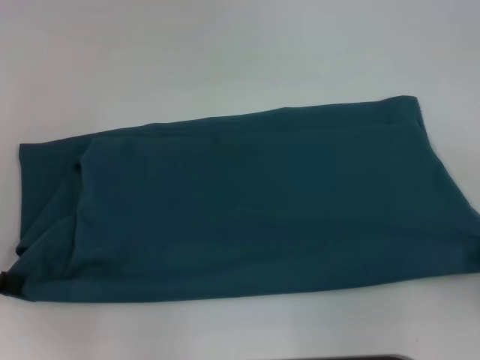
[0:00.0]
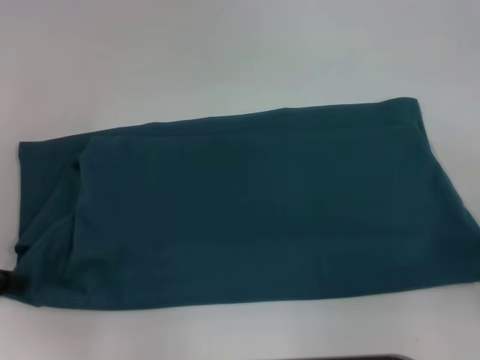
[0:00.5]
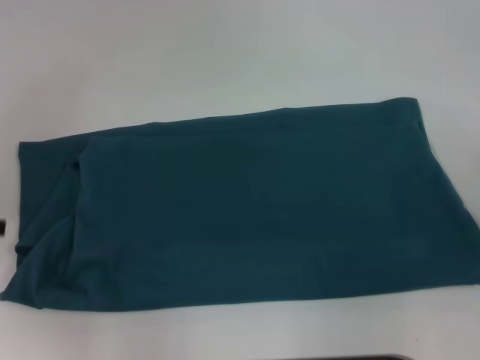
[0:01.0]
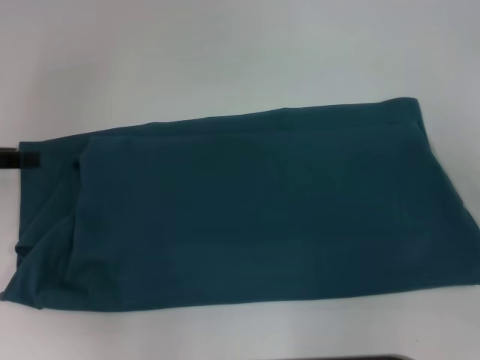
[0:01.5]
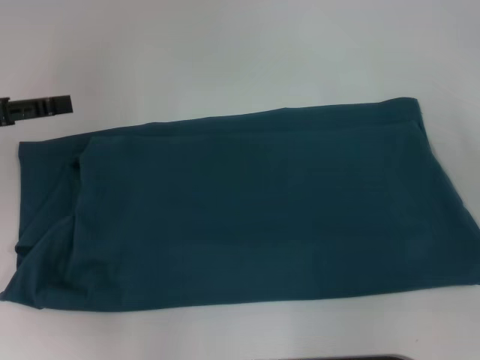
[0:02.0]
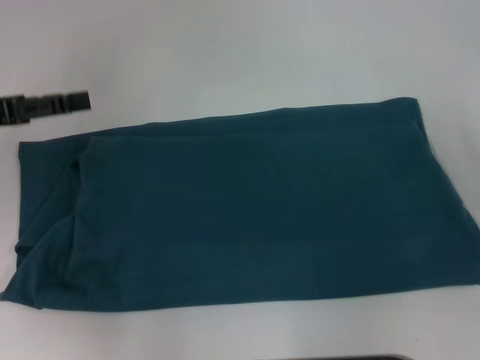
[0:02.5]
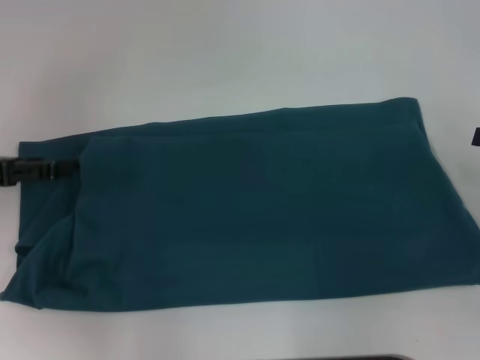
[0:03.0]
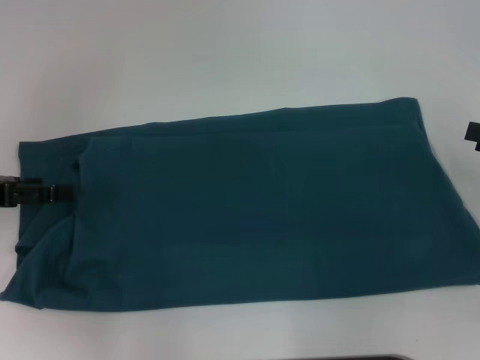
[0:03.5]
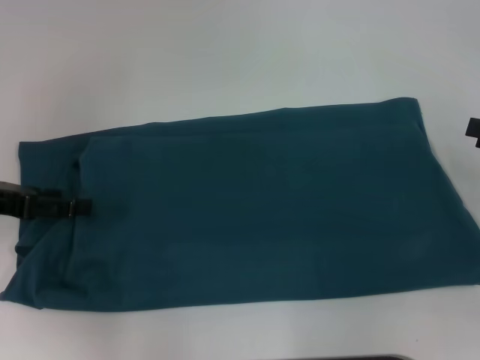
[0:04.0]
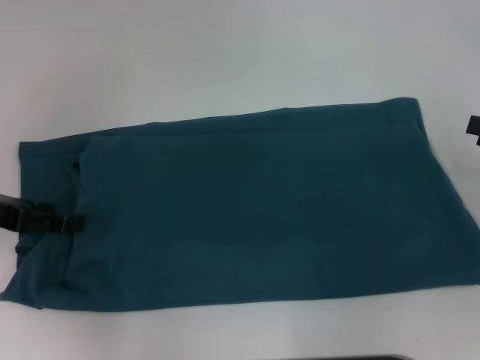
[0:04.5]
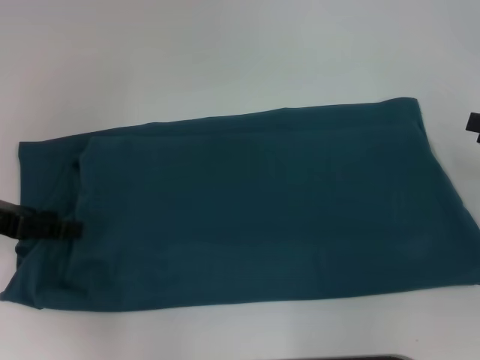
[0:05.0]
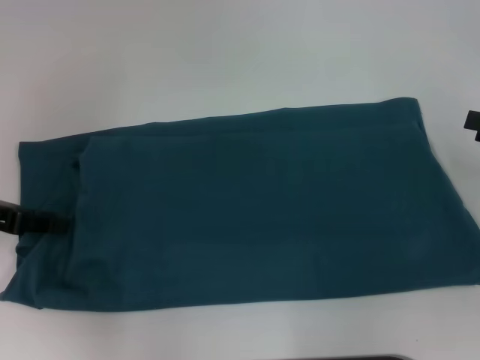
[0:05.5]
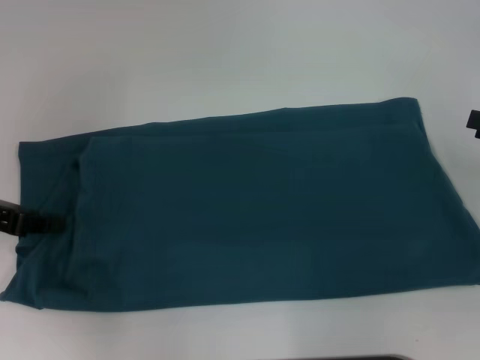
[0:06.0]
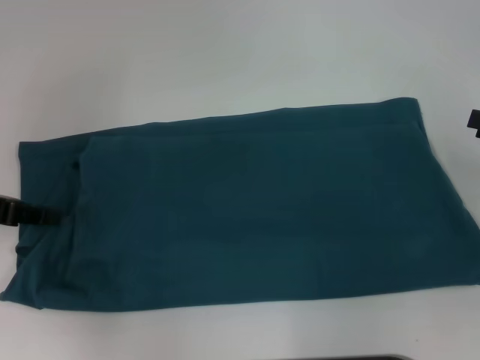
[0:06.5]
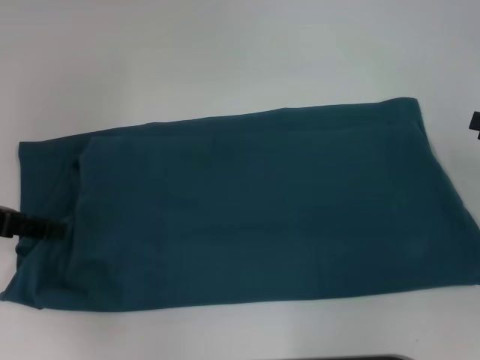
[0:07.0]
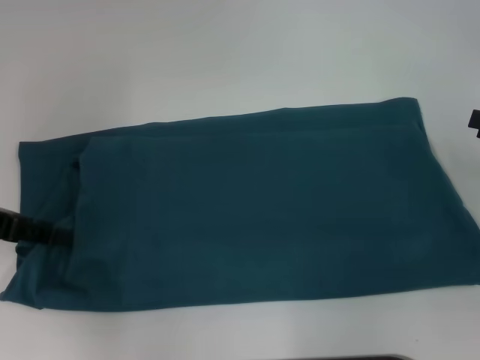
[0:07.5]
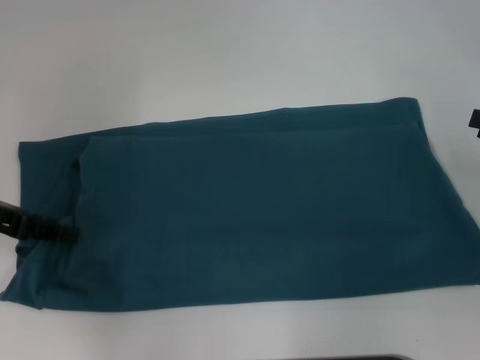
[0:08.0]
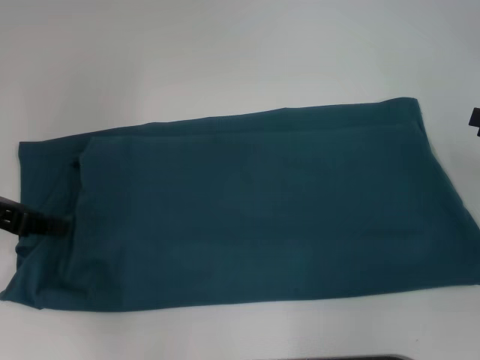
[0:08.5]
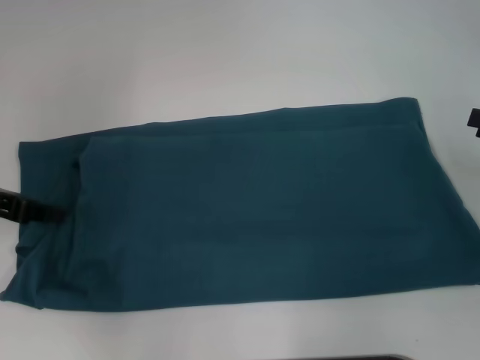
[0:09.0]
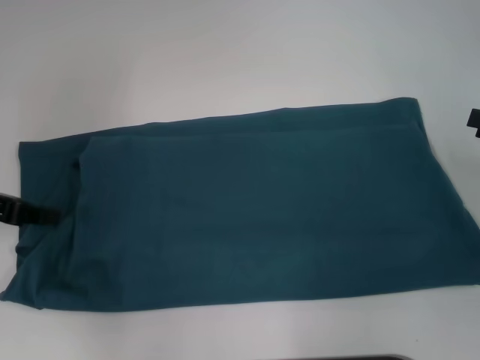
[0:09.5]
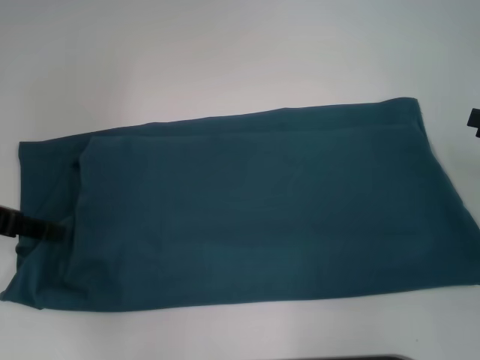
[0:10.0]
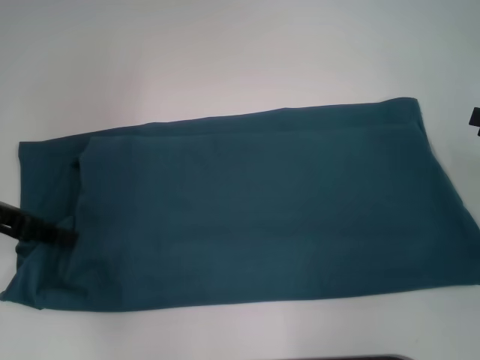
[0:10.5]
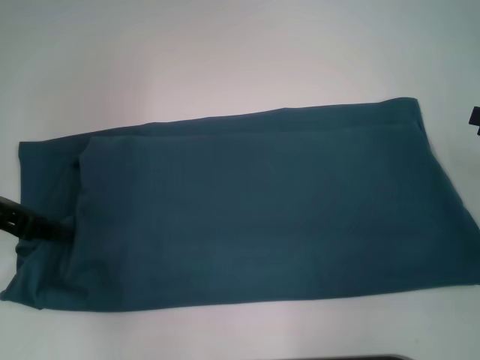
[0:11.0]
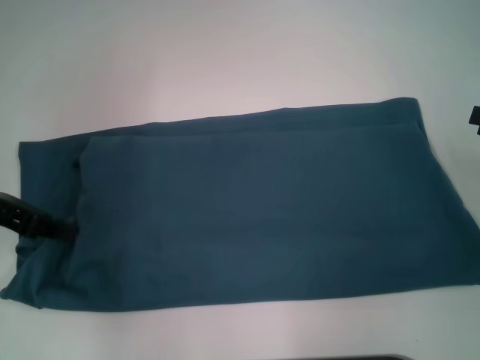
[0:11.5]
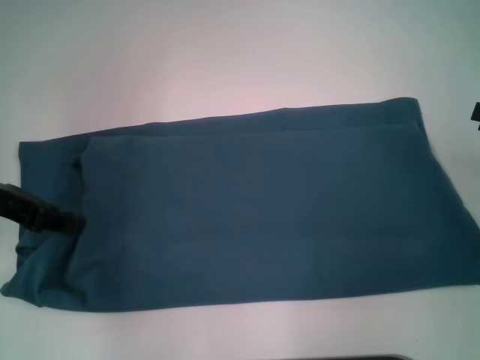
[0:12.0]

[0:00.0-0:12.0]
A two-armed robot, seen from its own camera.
0:00.0 to 0:02.0: The left gripper is displaced forward by roughly 10 cm, and opens its fingers, while the right gripper moves forward and upward, approximately 10 cm, and opens up.
0:02.0 to 0:04.0: The grippers move only a little.
0:04.0 to 0:06.0: The left gripper closes its fingers.
0:08.0 to 0:10.0: Both grippers stay put.
0:10.0 to 0:12.0: The grippers stay close to where they were, moving slightly.

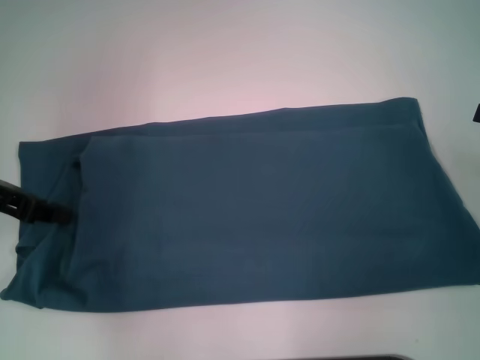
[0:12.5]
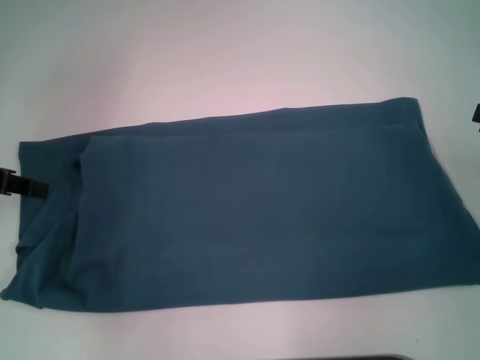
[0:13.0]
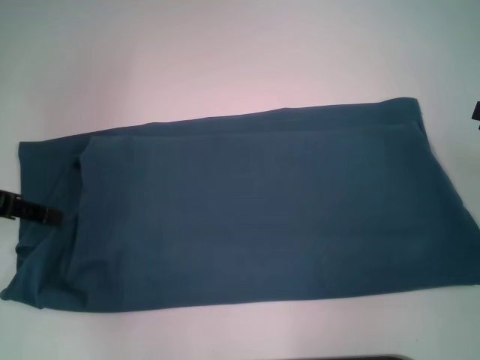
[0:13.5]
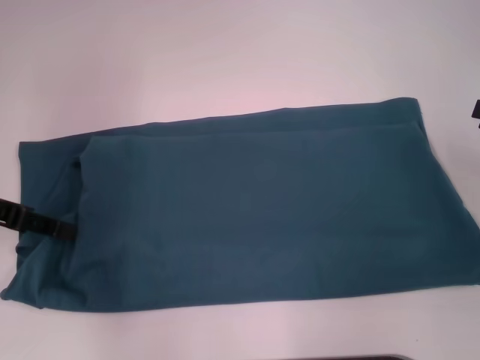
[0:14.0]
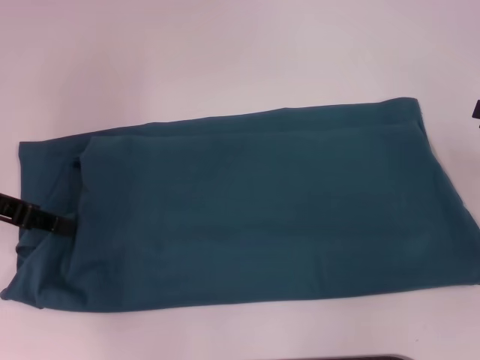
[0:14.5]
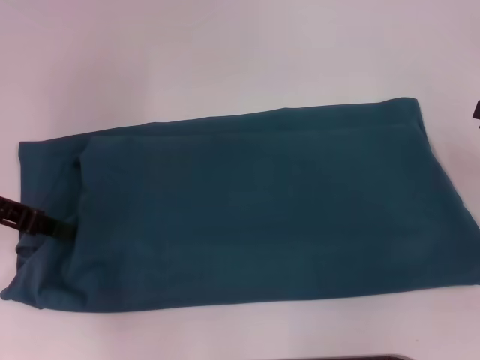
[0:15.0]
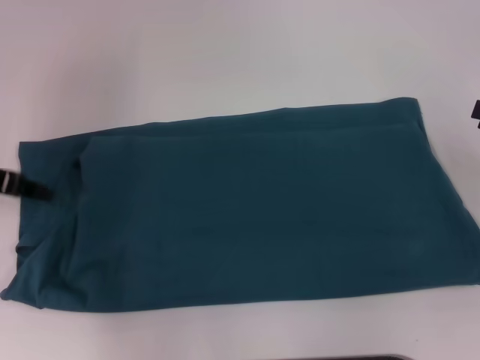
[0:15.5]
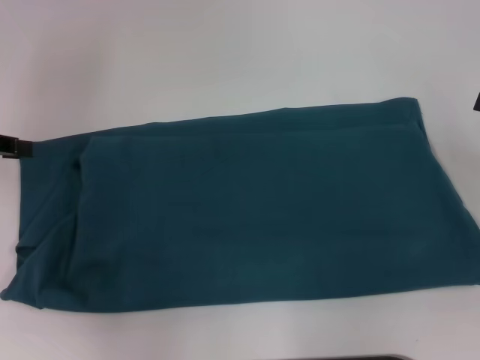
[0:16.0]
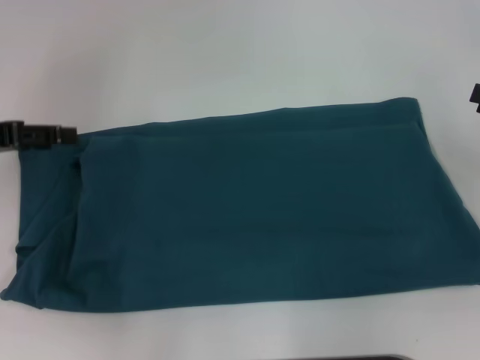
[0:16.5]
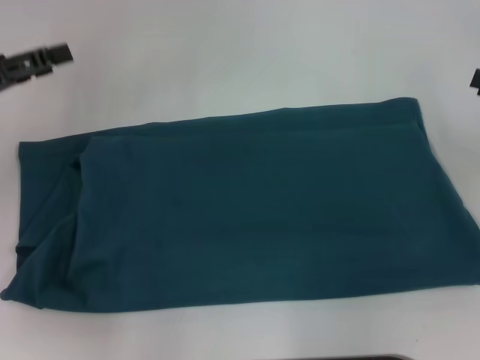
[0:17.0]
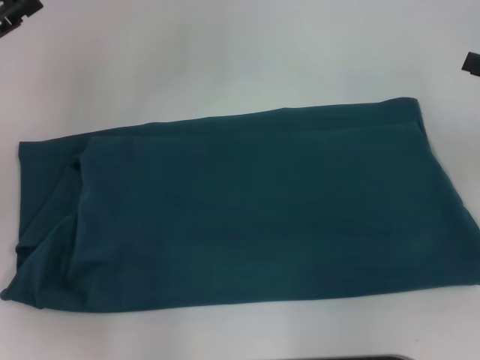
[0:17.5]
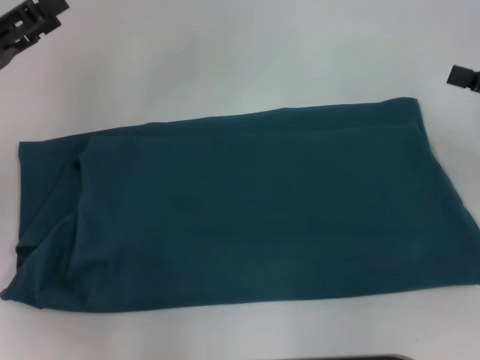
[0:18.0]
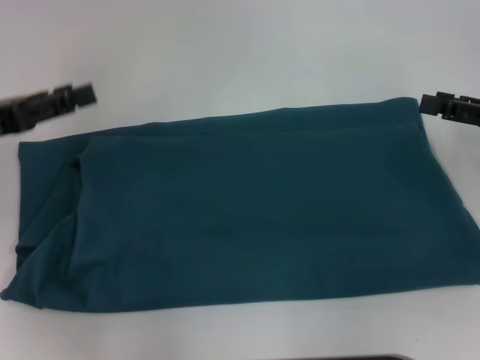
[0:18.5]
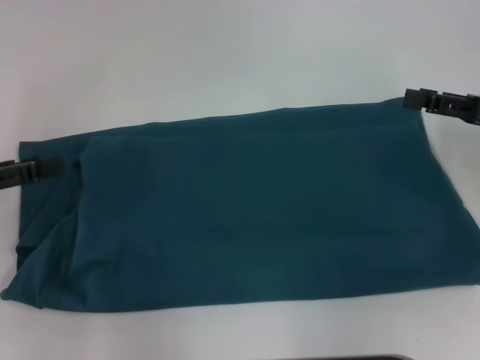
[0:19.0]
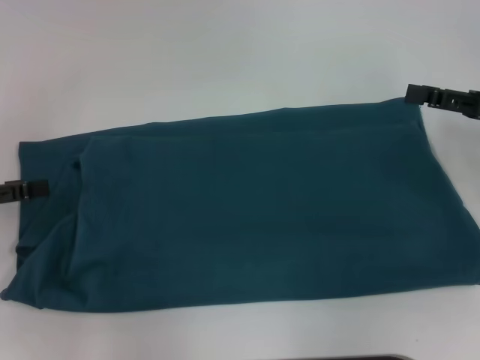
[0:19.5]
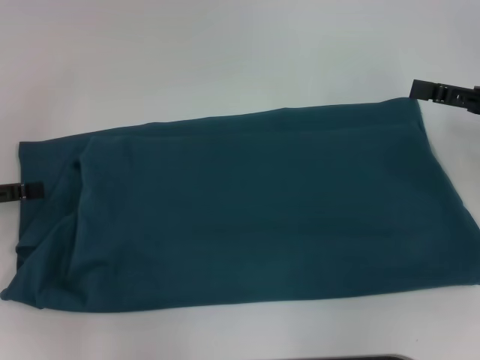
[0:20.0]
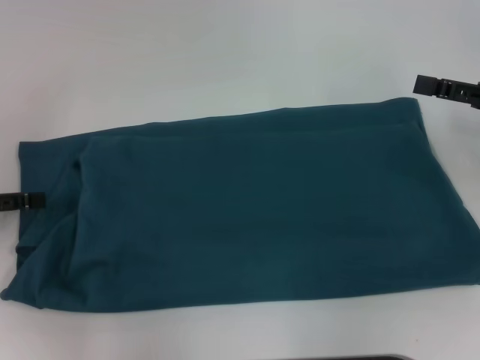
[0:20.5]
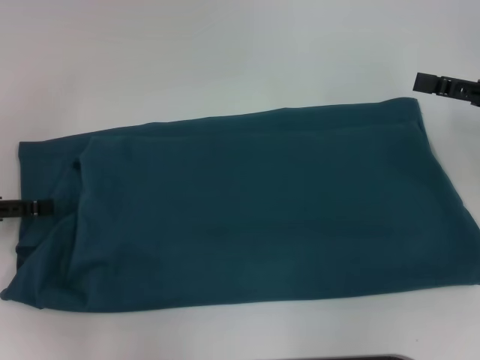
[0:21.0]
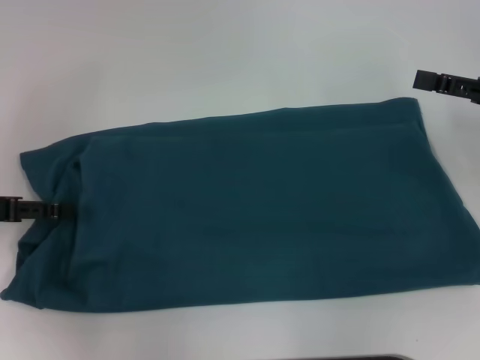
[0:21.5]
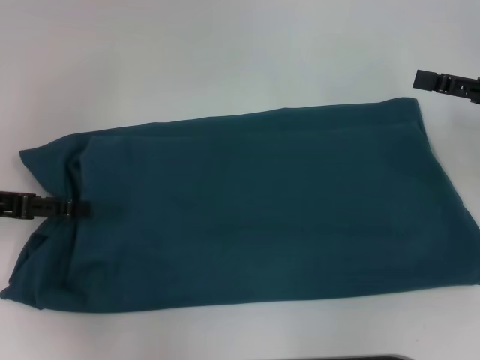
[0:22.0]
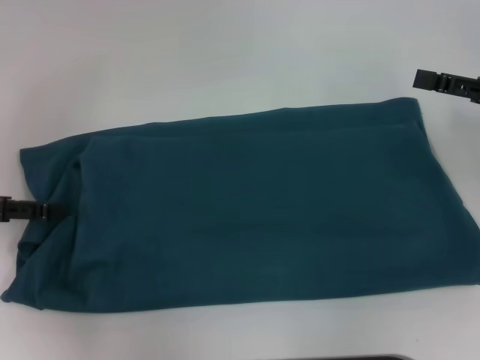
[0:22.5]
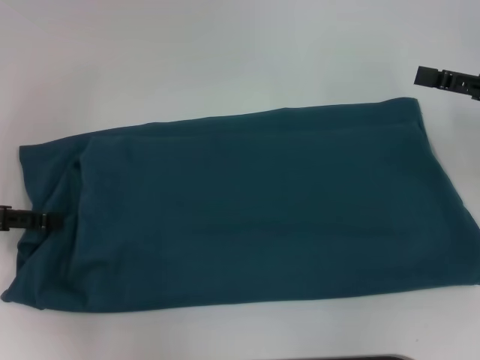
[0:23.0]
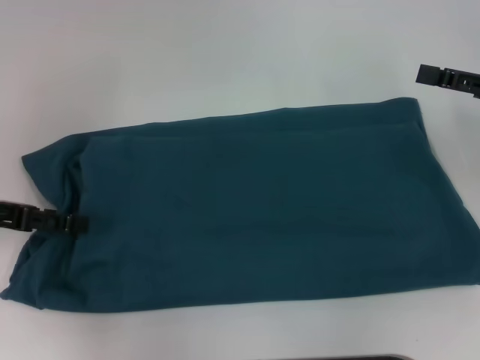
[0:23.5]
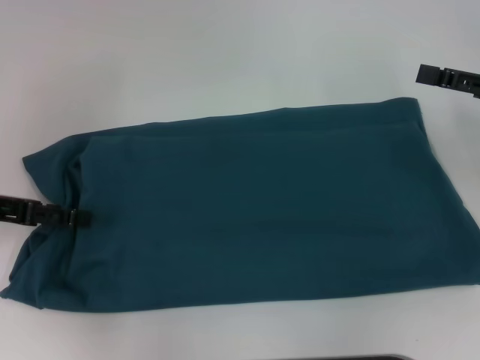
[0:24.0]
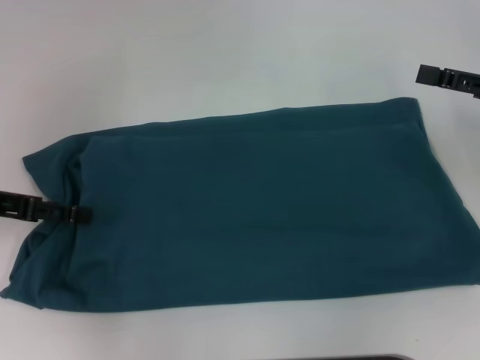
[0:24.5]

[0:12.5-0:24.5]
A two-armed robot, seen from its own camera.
0:12.5 to 0:14.5: The grippers make only small movements.
0:16.5 to 0:18.5: The left gripper opens up.
0:18.5 to 0:20.5: The left gripper is displaced to the left by roughly 5 cm.
0:20.5 to 0:24.5: The grippers move only a little.

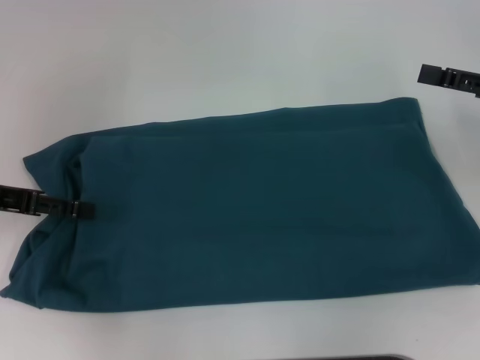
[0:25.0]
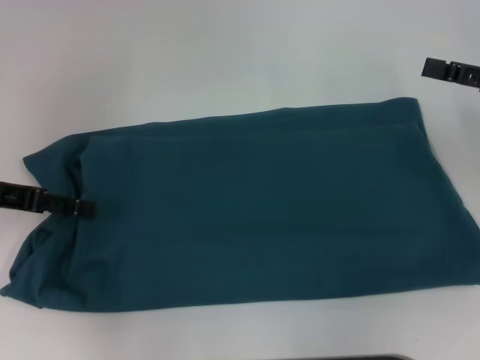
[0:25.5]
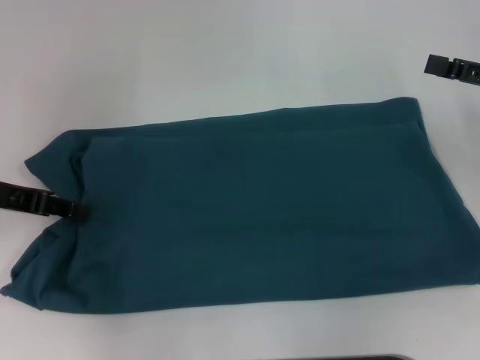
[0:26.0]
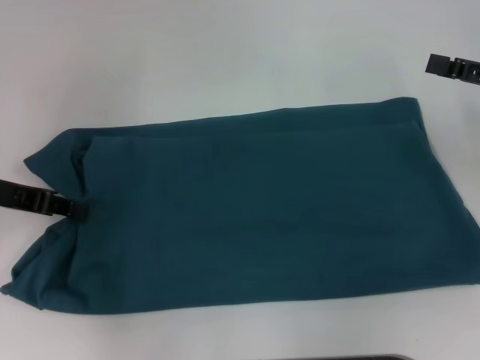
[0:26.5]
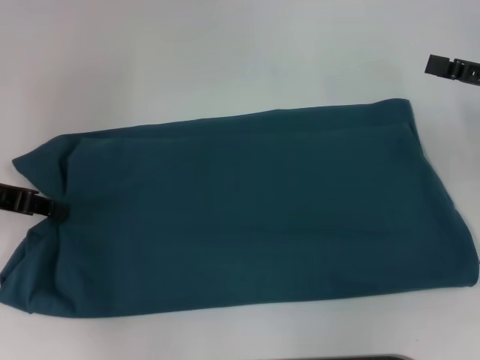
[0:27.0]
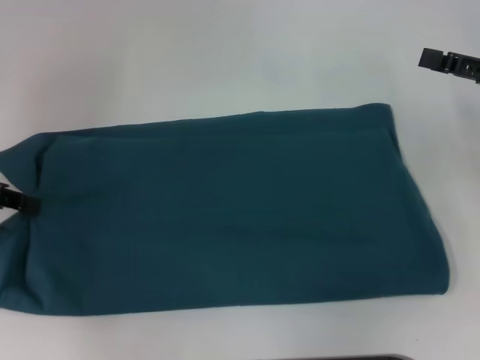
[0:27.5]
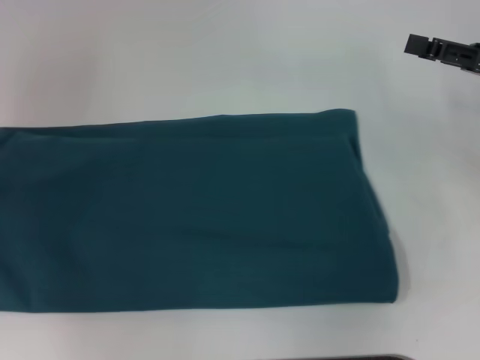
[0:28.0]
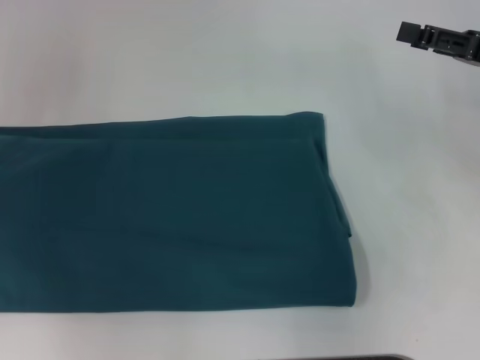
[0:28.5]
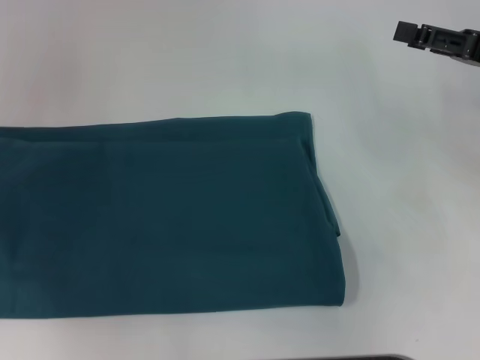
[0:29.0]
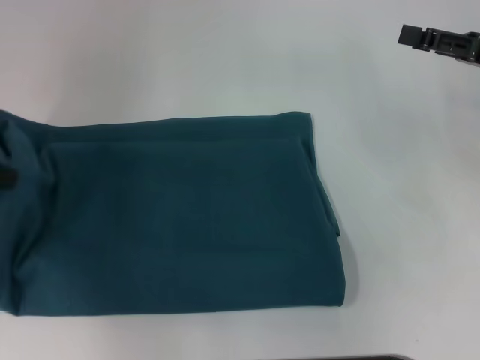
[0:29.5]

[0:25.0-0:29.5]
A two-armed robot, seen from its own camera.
0:25.0 to 0:27.0: The left gripper closes its fingers.
0:27.0 to 0:29.5: The left gripper heads upward, covering approximately 10 cm, and moves approximately 10 cm to the left and comes back.
